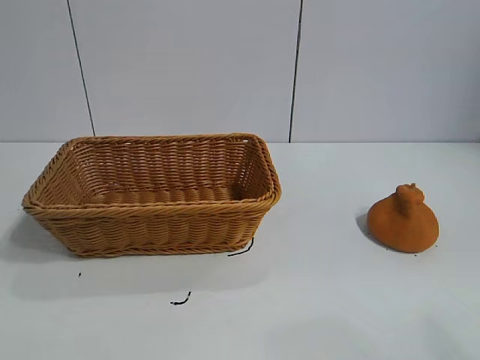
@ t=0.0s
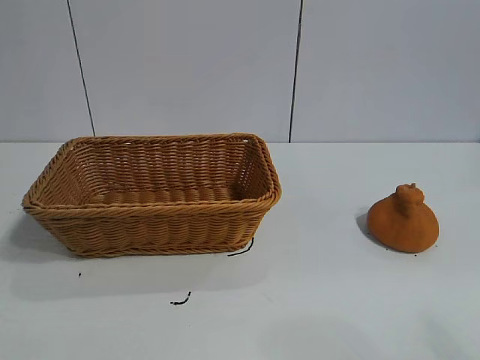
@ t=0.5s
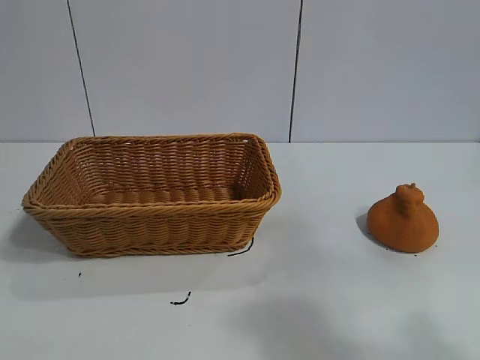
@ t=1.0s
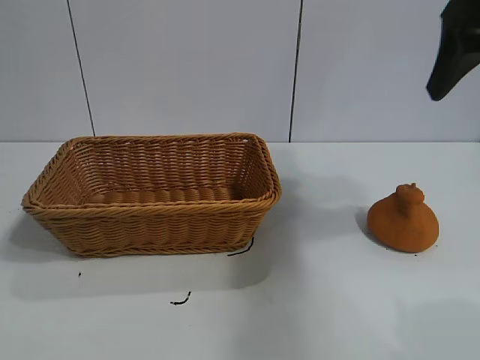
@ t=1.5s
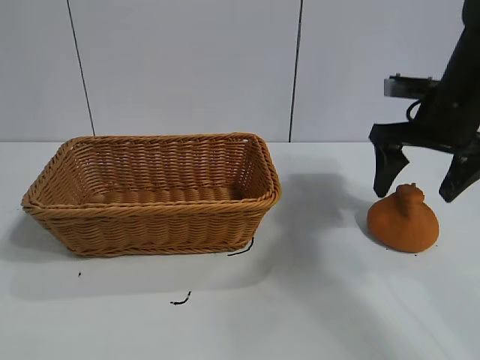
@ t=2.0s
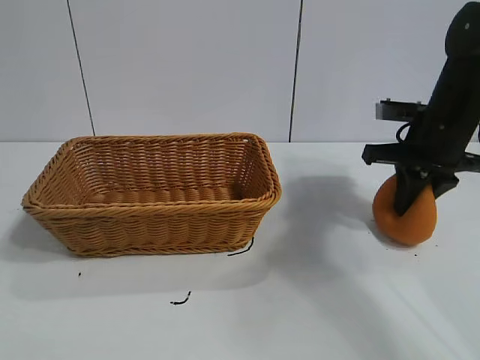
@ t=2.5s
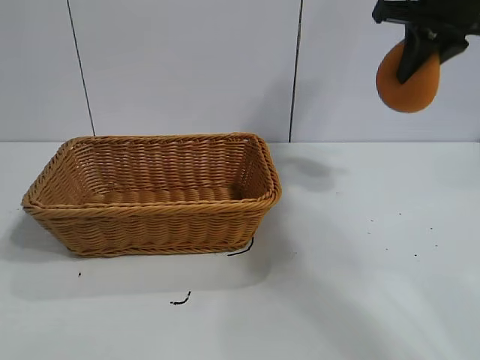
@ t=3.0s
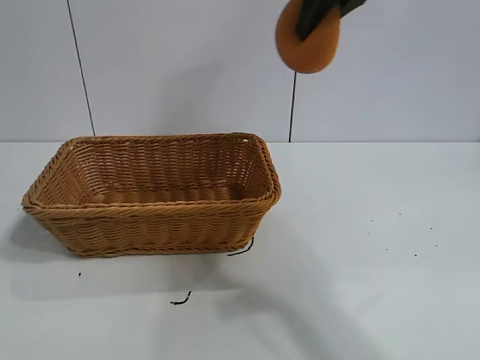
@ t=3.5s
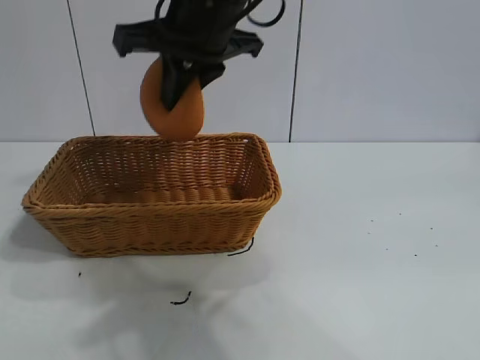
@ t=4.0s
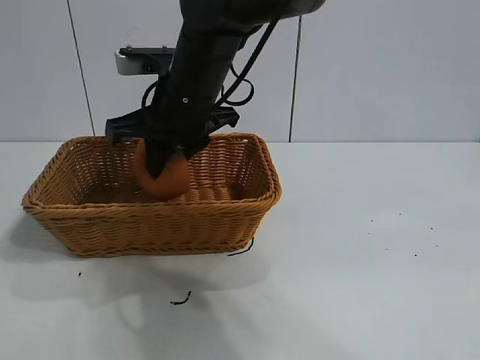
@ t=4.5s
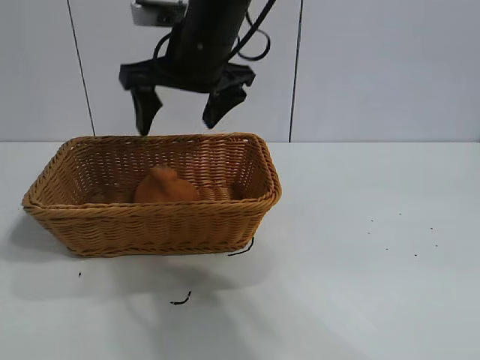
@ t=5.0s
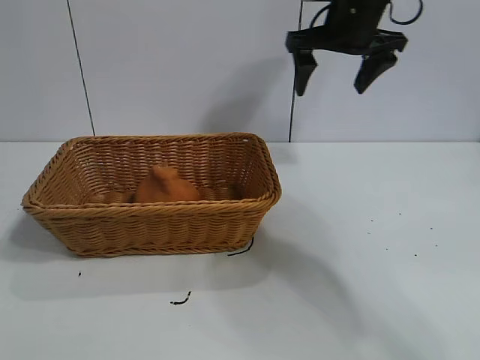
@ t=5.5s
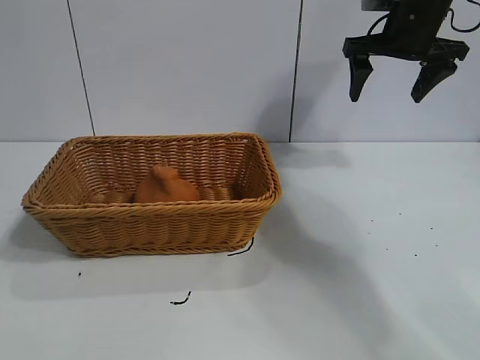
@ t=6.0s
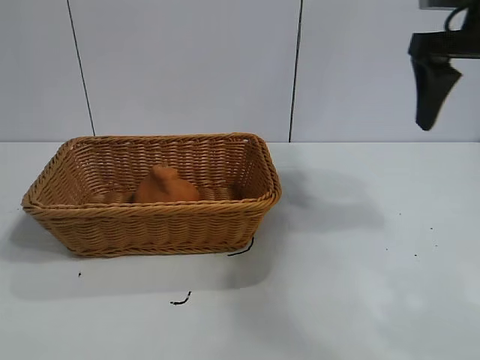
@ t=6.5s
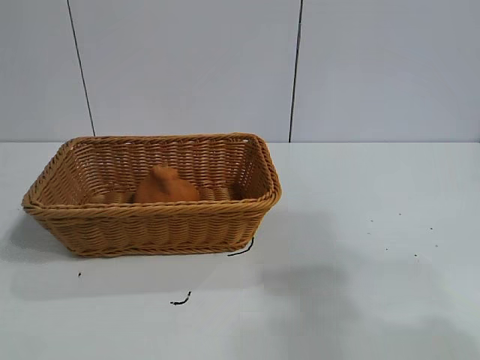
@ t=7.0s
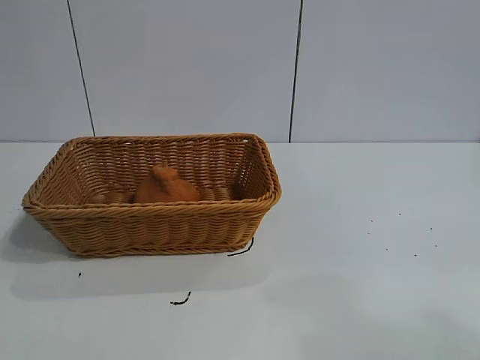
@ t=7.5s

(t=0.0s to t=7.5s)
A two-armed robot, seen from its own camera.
Task of the whole recording: pick up the orange and put it into the basket.
Step, t=1.0s - t=2.5s: Grasp the orange with right gripper.
Step, t=3.0s - t=4.5s: Place the orange in the basket with right gripper.

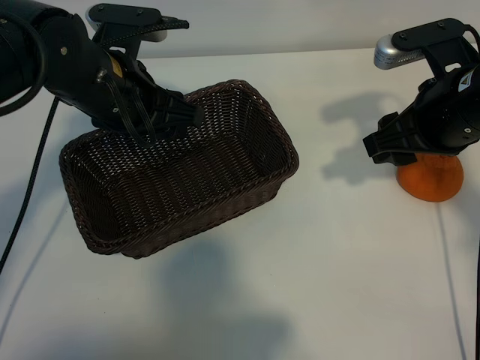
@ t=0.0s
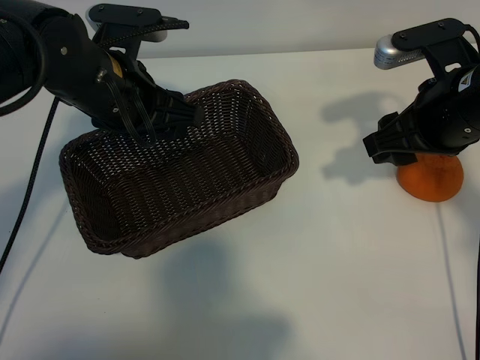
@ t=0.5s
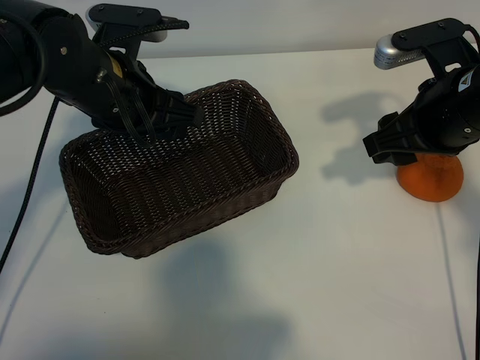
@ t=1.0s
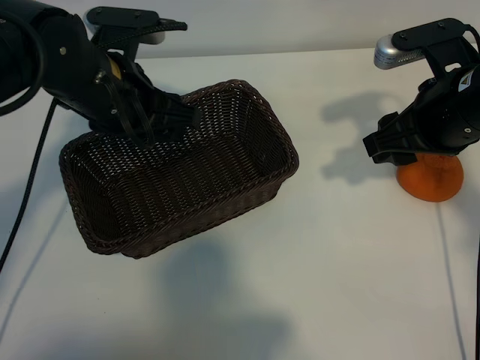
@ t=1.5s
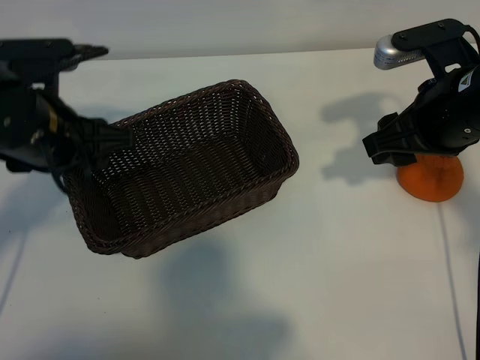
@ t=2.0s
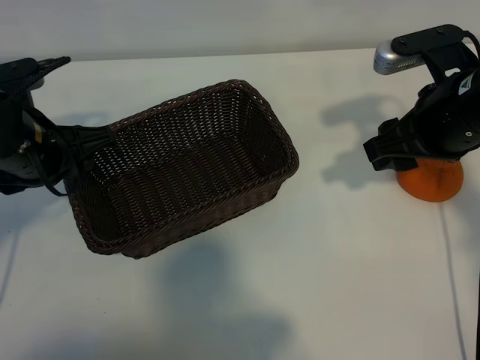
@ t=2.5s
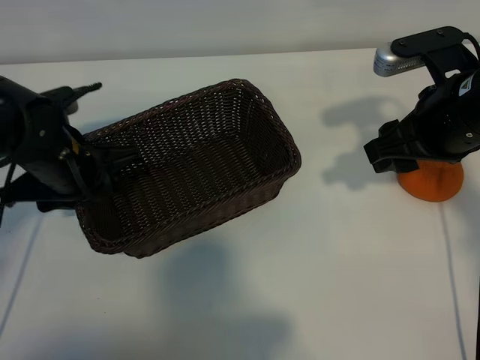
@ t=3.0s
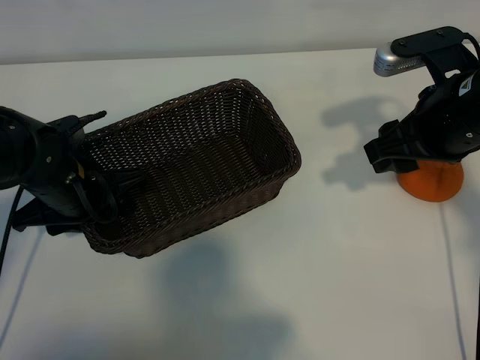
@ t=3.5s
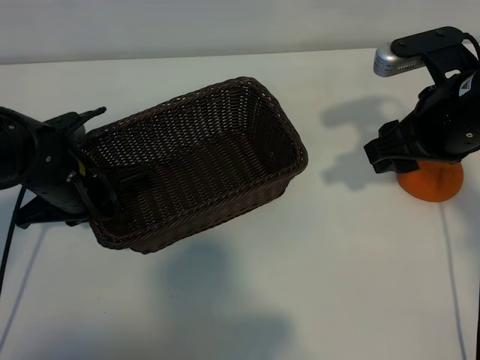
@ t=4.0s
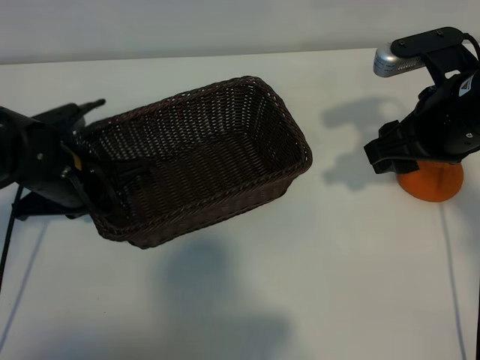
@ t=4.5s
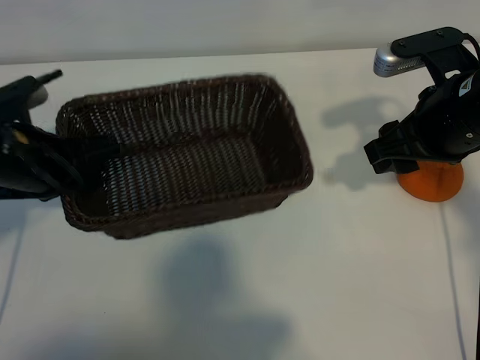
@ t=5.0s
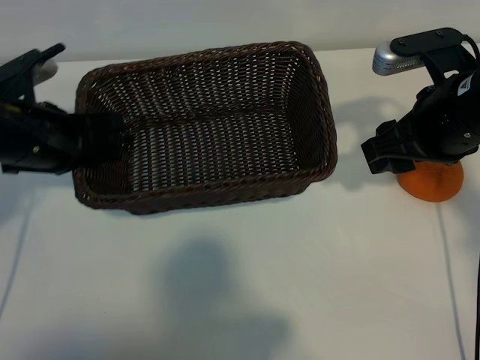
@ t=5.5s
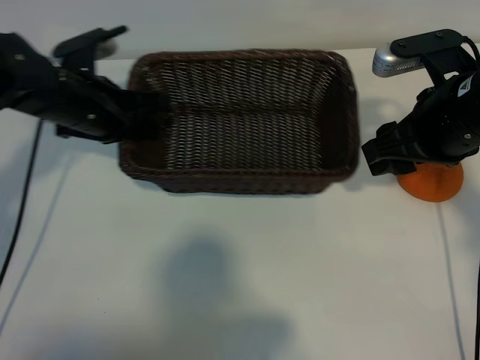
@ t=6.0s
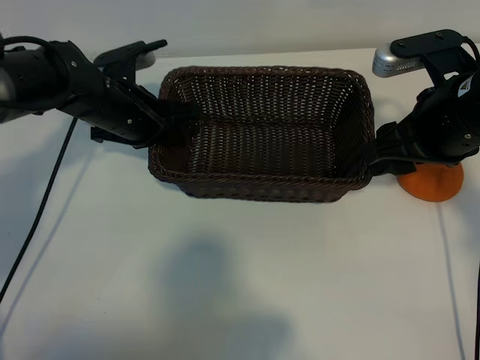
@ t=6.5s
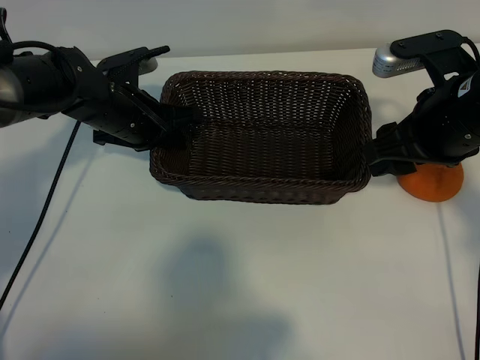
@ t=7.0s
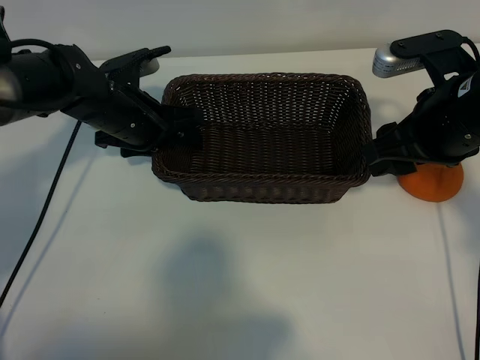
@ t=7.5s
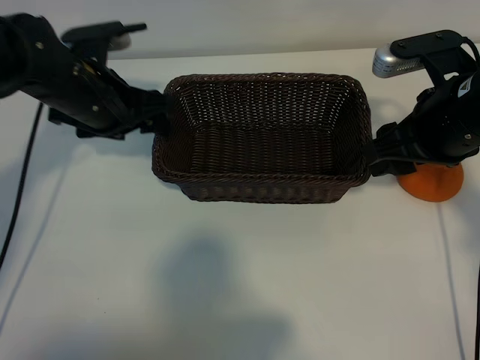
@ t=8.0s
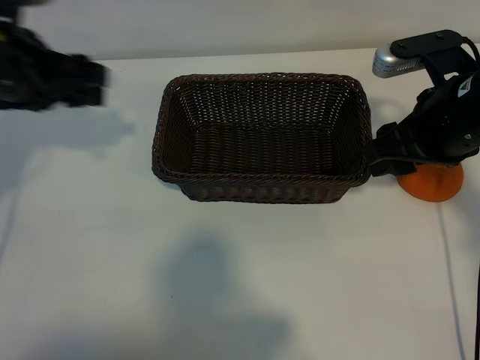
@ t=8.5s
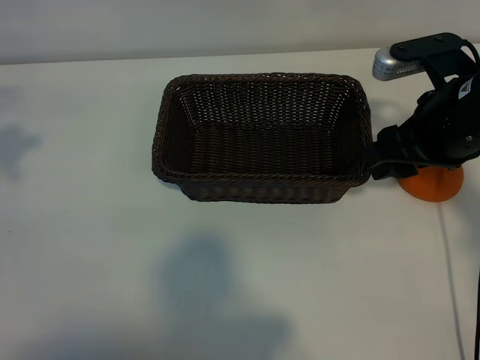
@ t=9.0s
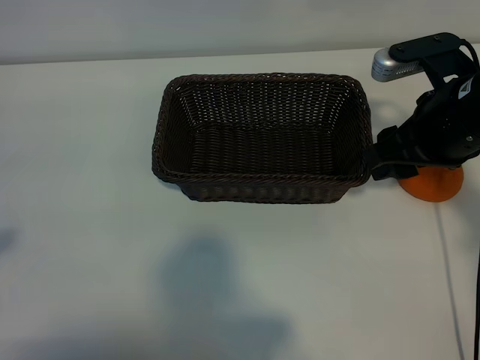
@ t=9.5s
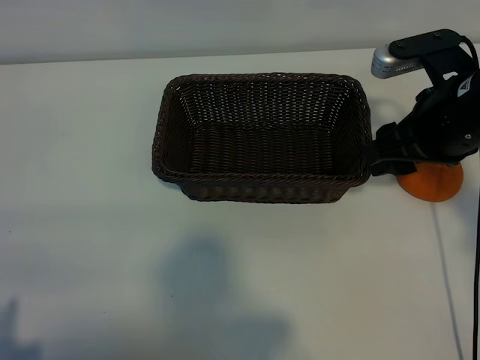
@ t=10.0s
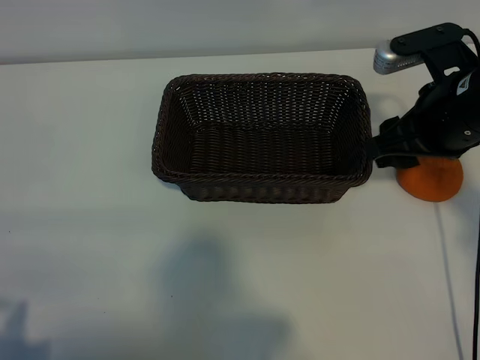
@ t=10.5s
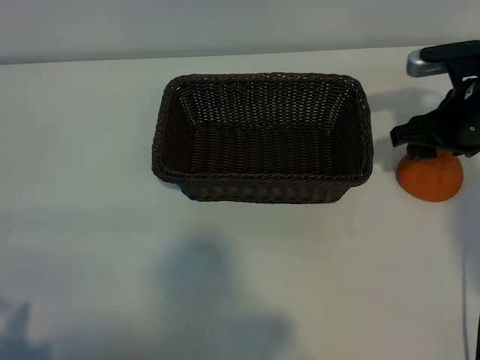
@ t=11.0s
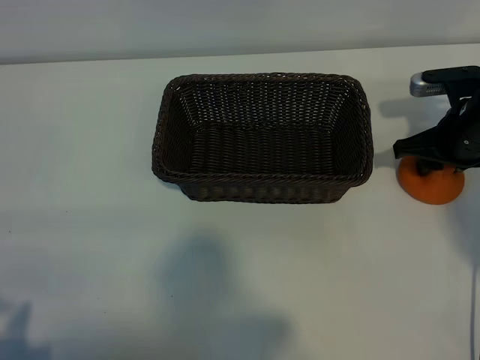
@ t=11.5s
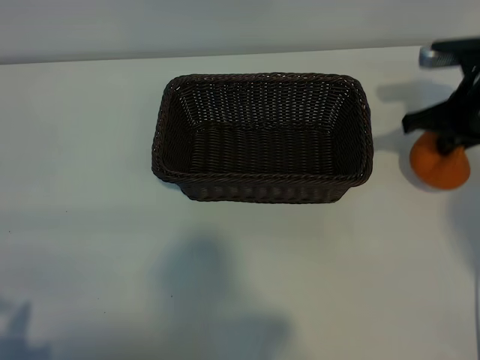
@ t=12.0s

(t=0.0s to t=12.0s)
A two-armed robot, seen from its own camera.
Task of the whole recording: pick up the orange and put it into the basket.
Step, t=1.5s - t=4.0s: Grasp the basket with left gripper.
Step, t=4.5s - t=7.0s: Place the basket in the center of view with left gripper.
Step, t=7.5s - t=11.5s: Grasp the orange with right gripper.

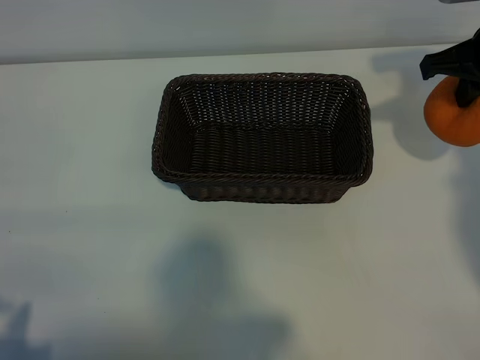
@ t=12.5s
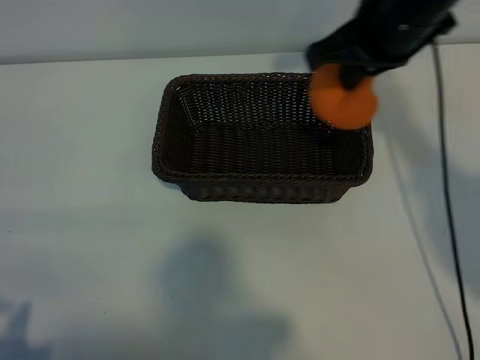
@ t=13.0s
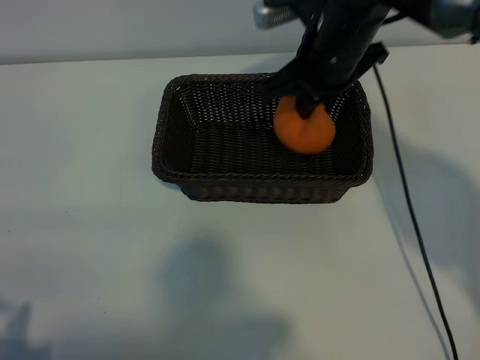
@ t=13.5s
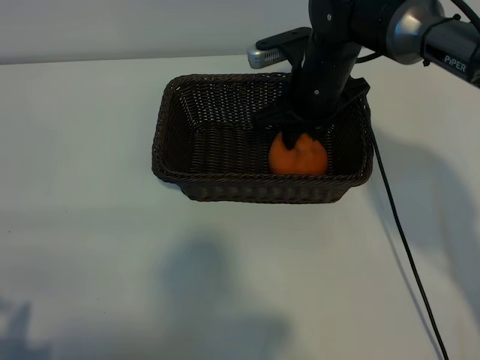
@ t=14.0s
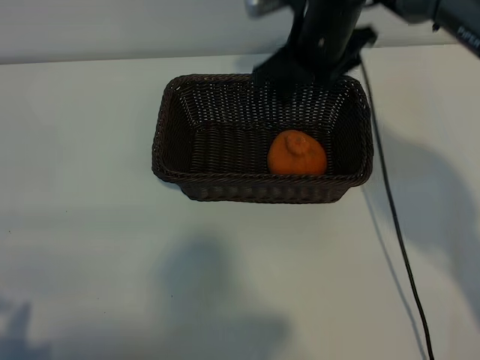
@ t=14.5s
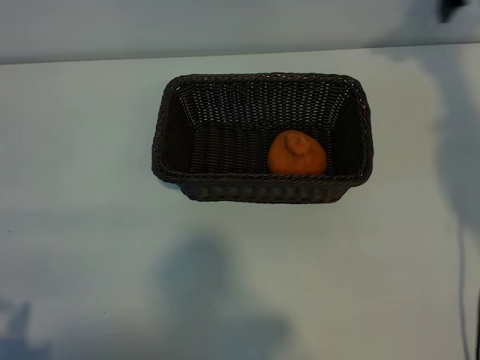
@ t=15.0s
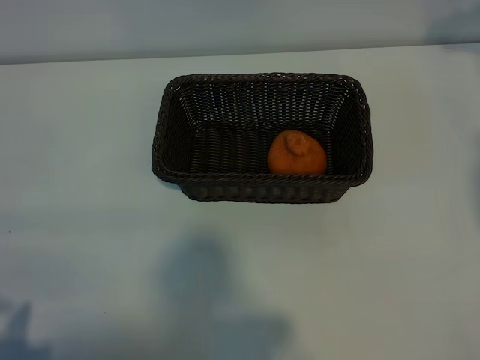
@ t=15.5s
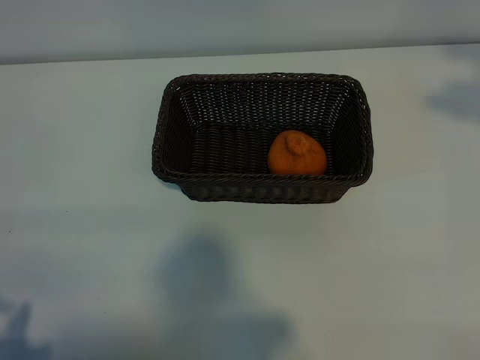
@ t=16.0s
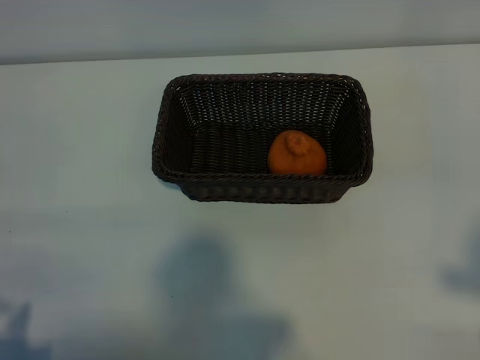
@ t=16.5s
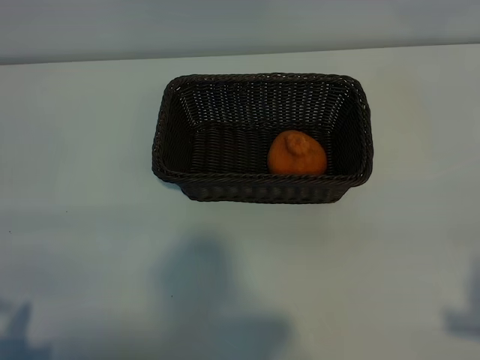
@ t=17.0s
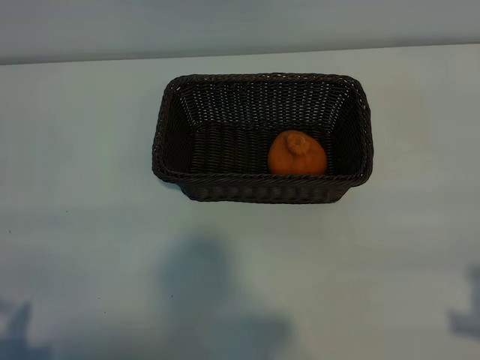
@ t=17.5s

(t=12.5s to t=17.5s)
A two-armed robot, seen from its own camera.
Task of the whole recording: pick up the orange and put it into the basket.
Step, t=12.5s - t=14.0s: Place the orange in the basket with right gripper.
